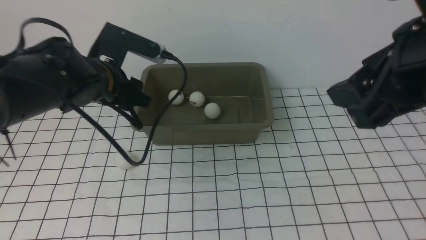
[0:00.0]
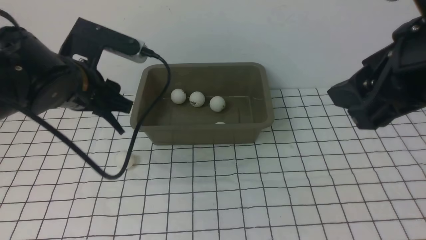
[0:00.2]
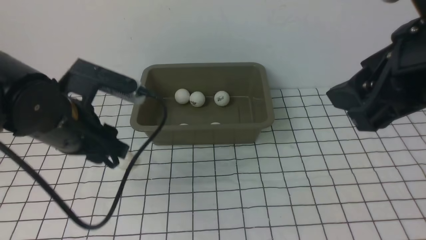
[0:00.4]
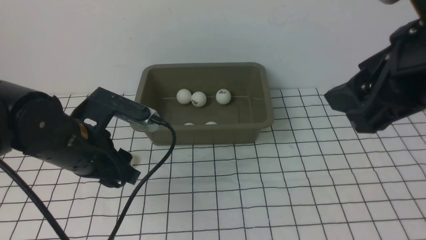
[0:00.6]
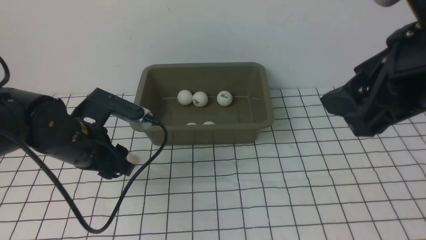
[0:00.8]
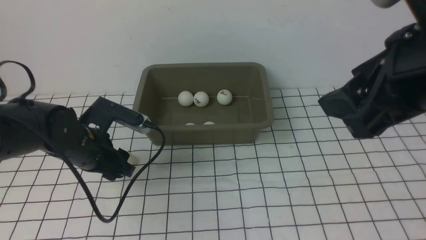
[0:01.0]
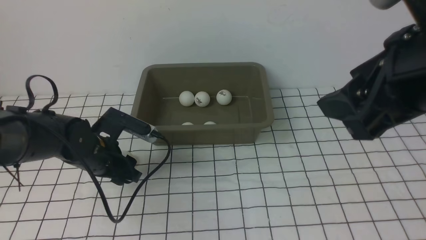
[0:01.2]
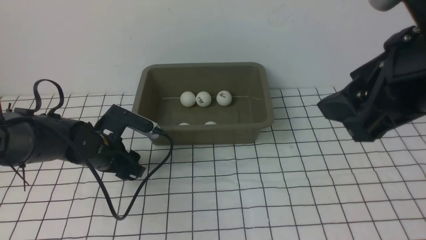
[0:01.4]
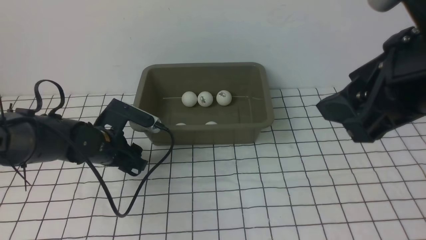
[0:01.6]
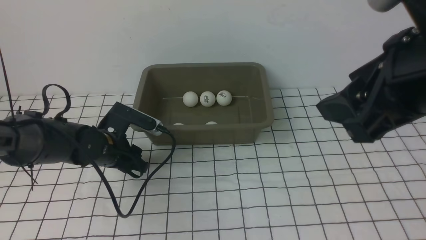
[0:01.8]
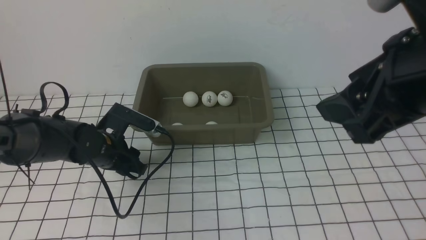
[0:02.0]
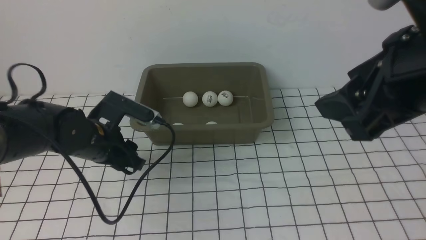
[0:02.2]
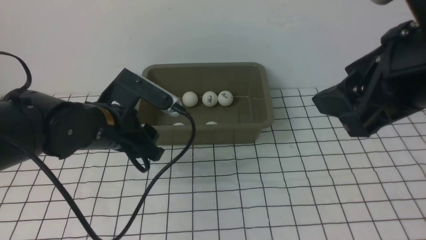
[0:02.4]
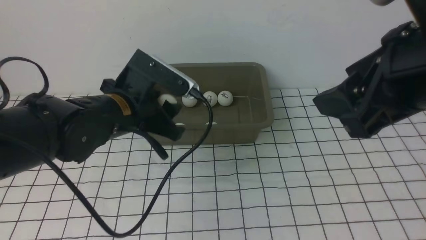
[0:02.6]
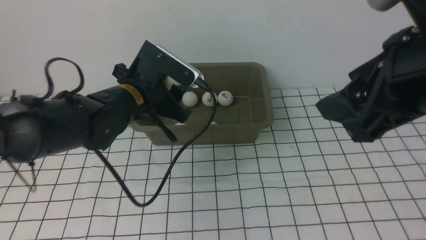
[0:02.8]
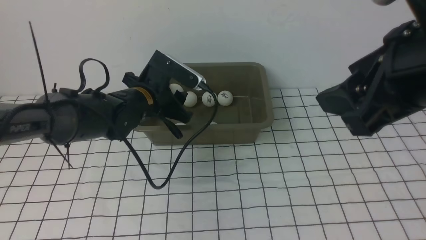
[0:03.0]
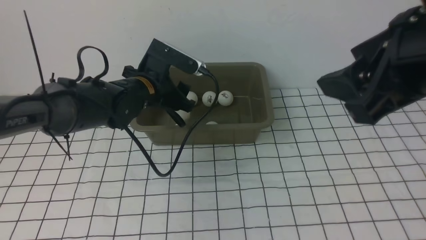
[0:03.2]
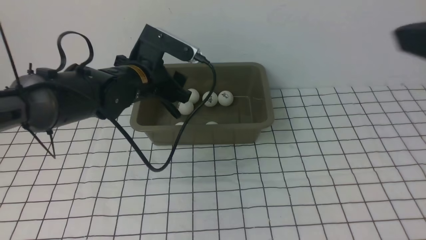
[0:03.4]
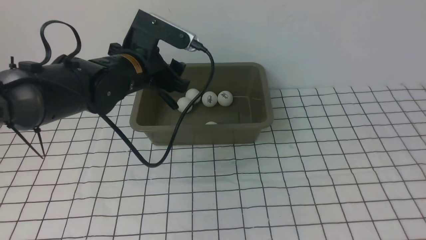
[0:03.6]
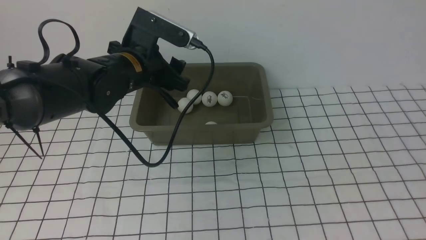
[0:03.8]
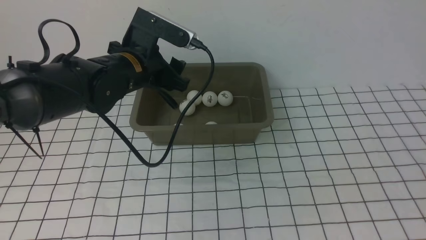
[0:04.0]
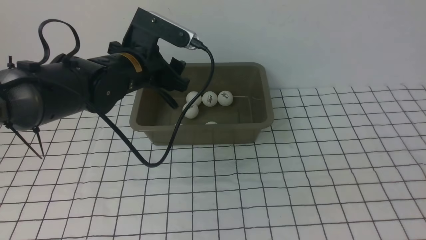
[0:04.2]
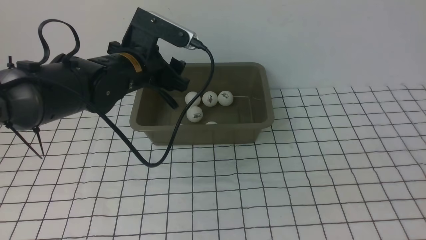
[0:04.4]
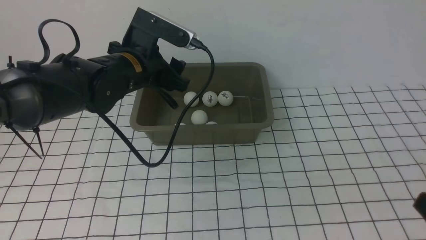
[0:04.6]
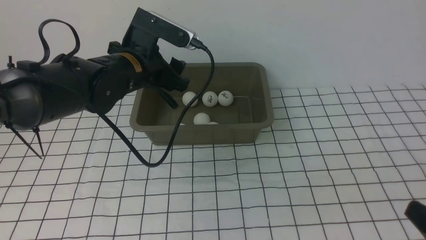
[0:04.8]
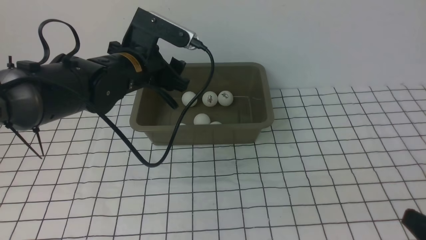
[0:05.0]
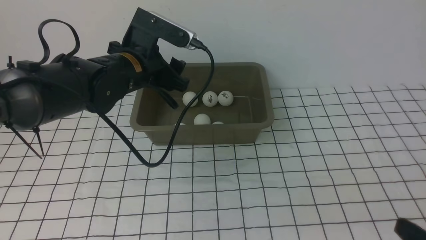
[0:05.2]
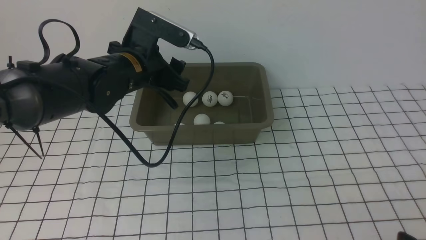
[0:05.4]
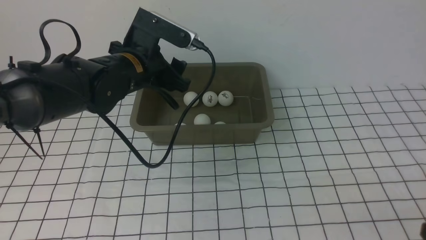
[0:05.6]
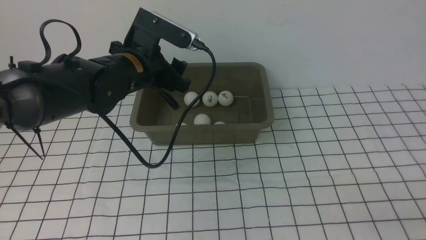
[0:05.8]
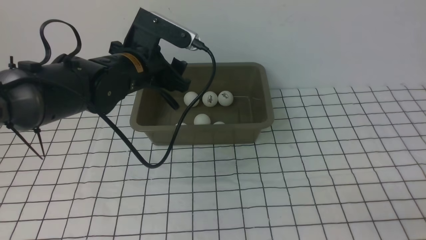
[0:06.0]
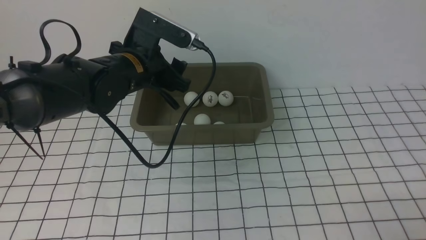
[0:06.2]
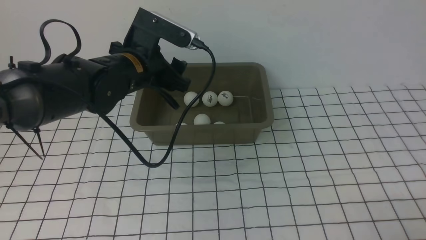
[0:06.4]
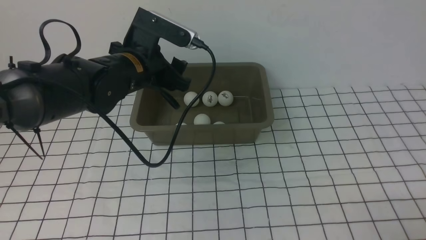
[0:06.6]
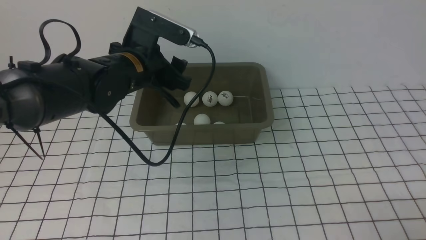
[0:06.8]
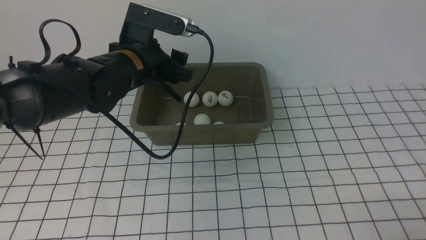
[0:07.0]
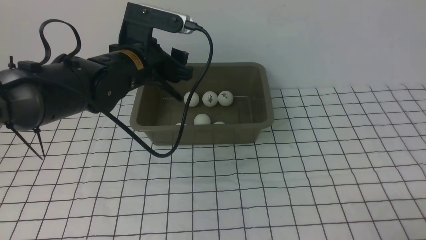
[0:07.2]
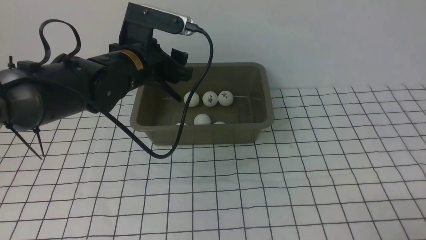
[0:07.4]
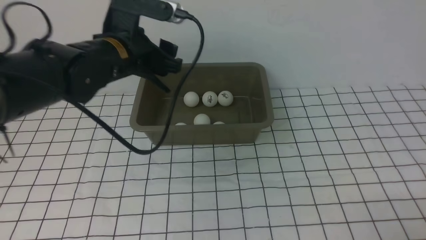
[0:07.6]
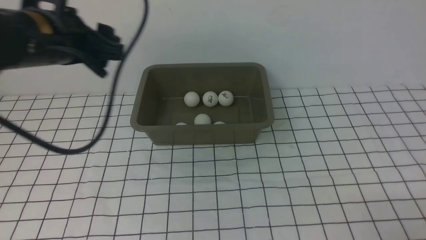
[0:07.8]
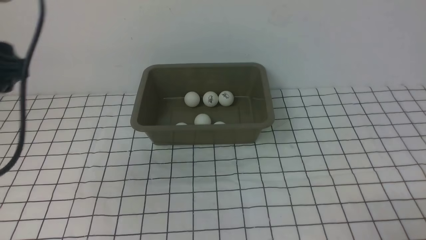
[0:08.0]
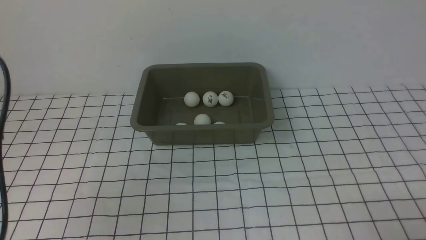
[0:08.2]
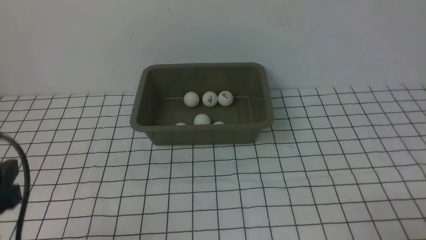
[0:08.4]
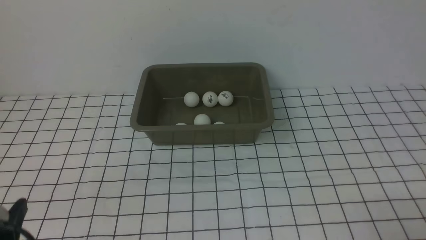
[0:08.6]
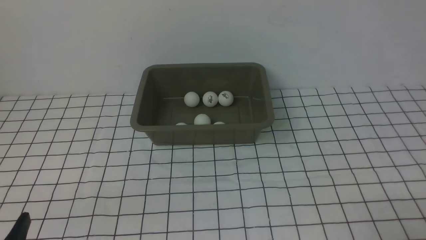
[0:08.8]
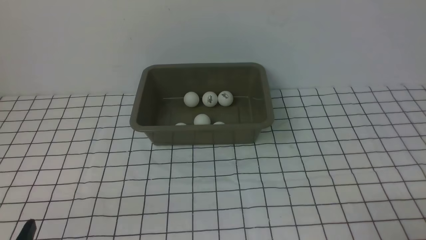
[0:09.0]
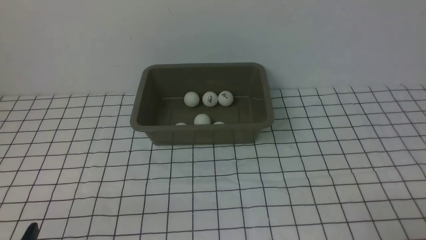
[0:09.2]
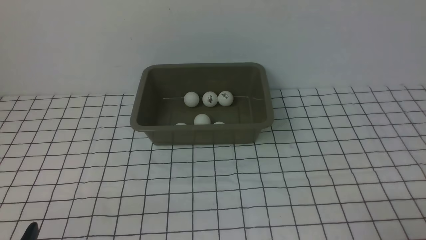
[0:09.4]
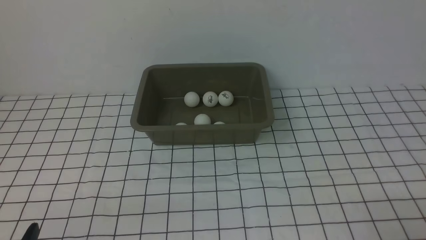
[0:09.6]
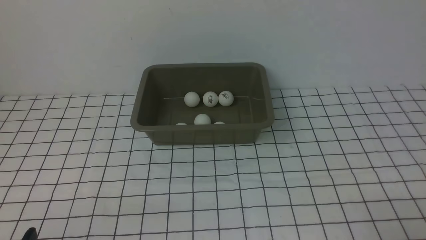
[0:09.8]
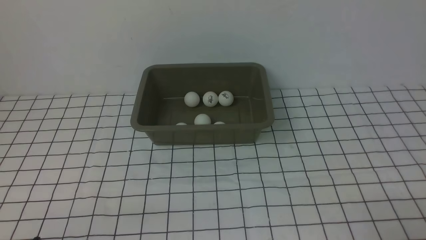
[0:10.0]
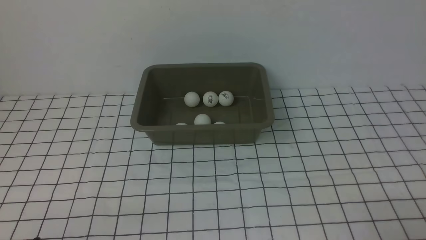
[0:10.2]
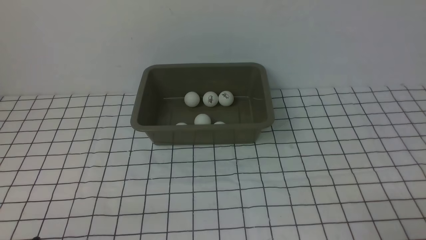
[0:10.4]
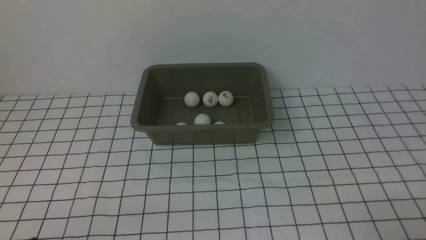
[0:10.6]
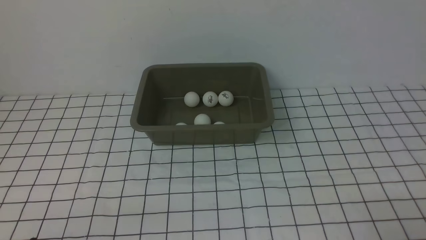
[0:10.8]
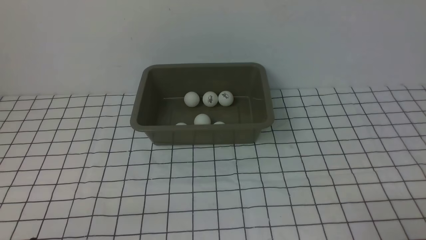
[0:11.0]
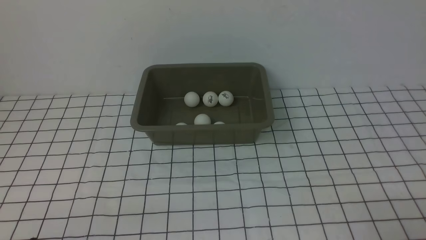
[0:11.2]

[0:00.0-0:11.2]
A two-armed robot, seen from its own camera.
Step, 0:00.0 to 0:02.2: use the left arm to clamp the table tennis ball closest to it.
Step, 0:02.6 to 0:03.2: use the left arm to put the table tennis ball into the box.
0:00.0 to 0:01.6: The left gripper travels downward by some 10 cm.
0:01.6 to 0:03.2: The left gripper goes about 10 cm upward and to the right.
0:03.2 to 0:04.8: The right gripper moves downward, backward and to the right, some 20 cm.
0:04.8 to 0:06.4: The right gripper is displaced downward by about 10 cm.
0:06.4 to 0:08.0: The left gripper moves to the left, backward and upward, some 20 cm.
0:08.0 to 0:09.6: The left gripper is displaced downward and backward by approximately 25 cm.

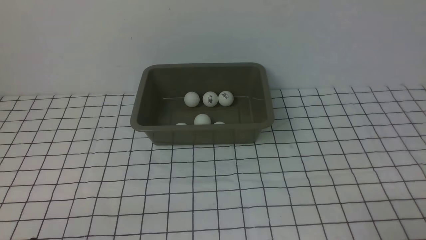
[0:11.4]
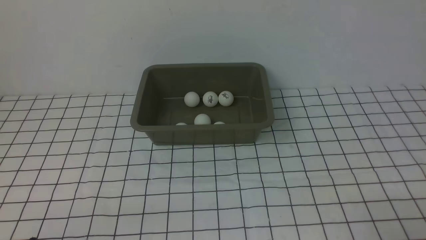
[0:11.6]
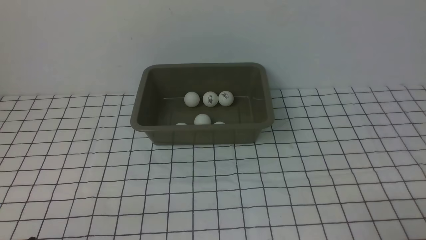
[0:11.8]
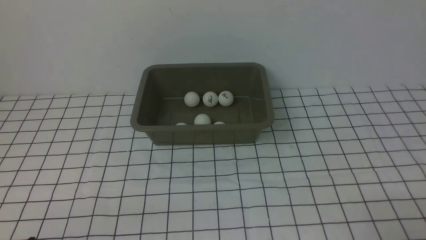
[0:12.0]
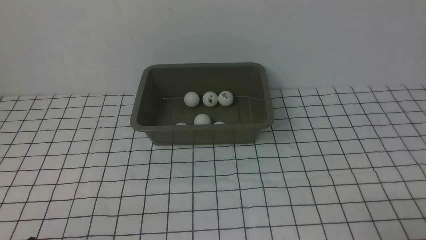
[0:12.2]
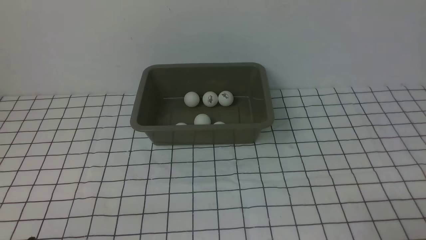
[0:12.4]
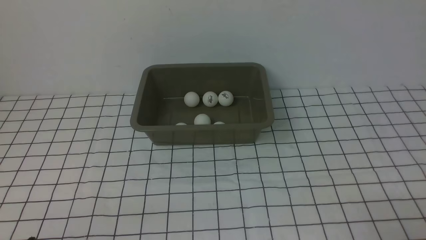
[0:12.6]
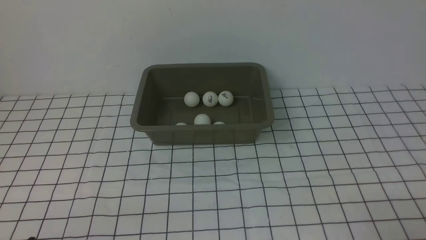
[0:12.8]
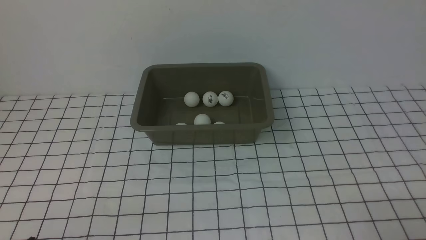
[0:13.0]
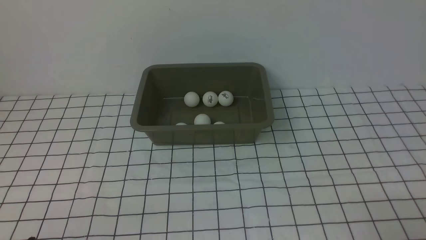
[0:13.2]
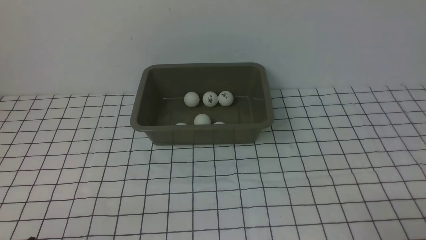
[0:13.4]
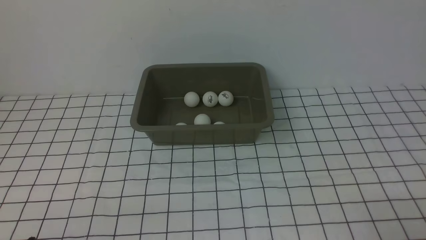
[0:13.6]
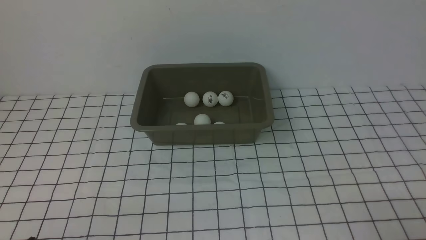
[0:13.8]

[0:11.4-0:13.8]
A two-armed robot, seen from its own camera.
0:11.4 to 0:13.8: Both grippers stay put.

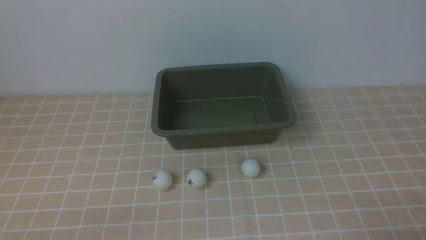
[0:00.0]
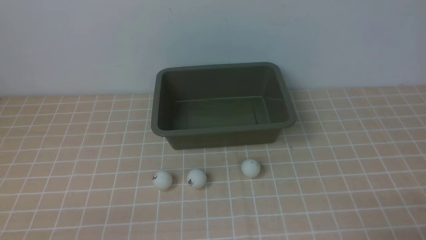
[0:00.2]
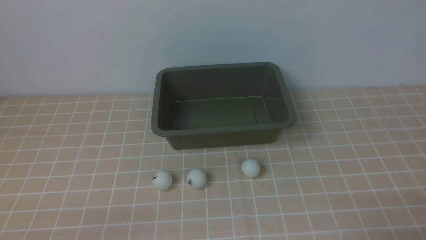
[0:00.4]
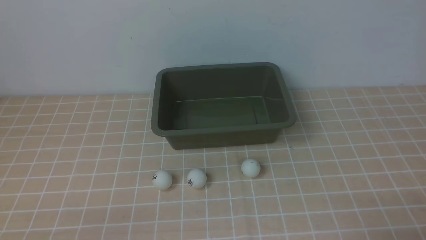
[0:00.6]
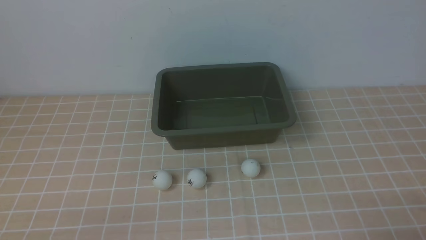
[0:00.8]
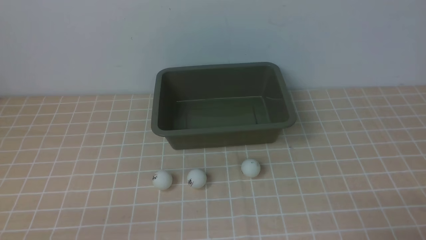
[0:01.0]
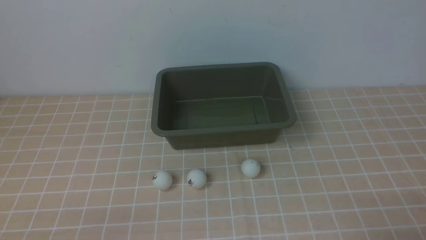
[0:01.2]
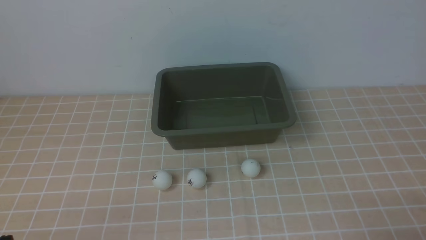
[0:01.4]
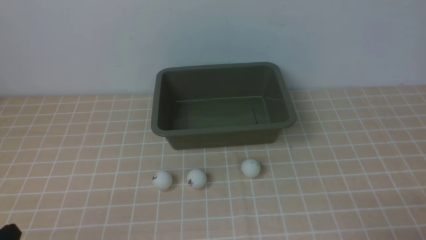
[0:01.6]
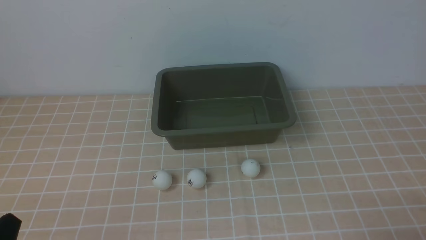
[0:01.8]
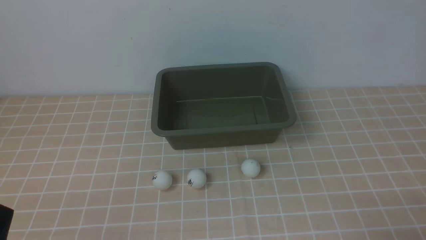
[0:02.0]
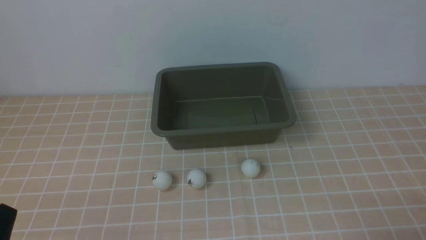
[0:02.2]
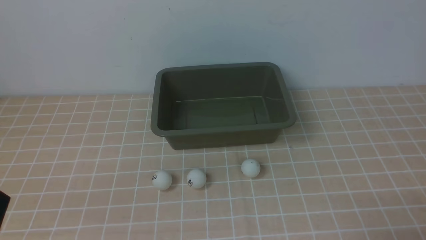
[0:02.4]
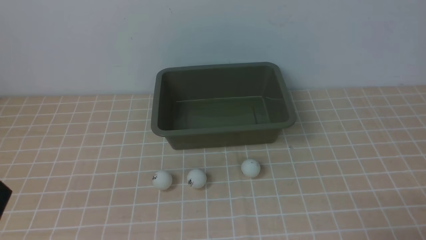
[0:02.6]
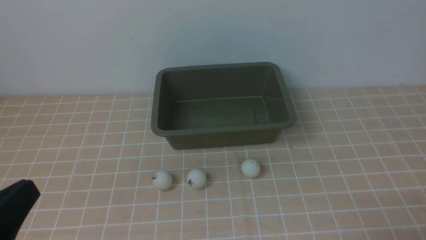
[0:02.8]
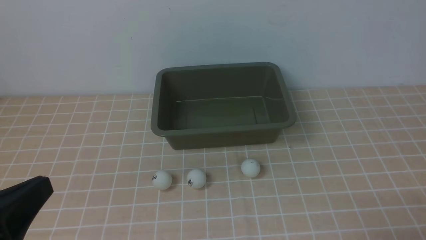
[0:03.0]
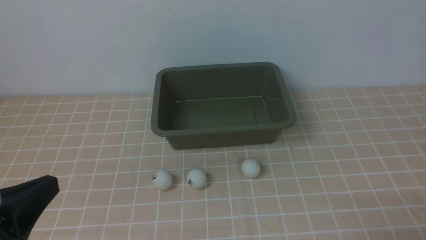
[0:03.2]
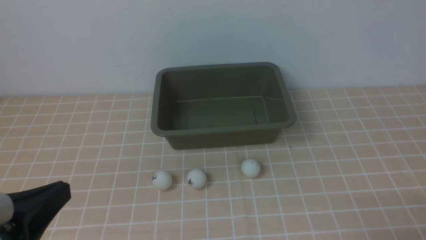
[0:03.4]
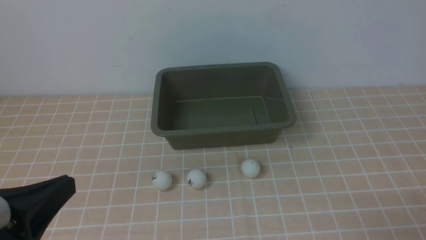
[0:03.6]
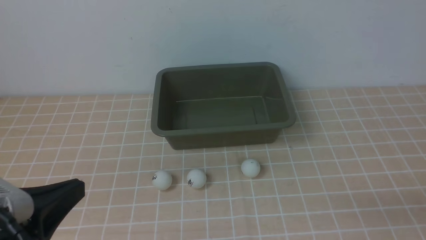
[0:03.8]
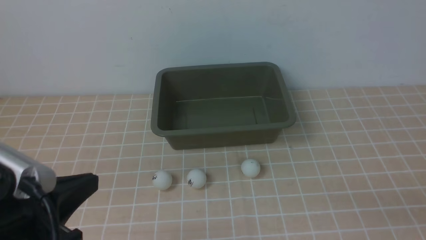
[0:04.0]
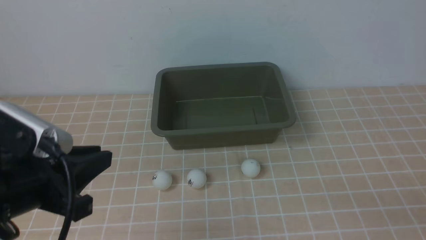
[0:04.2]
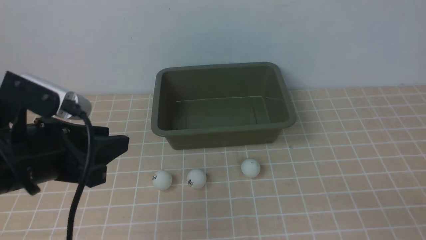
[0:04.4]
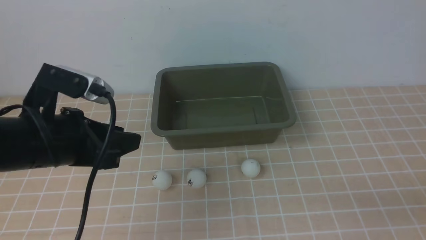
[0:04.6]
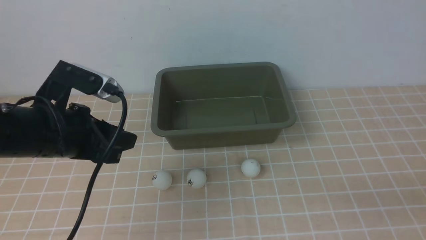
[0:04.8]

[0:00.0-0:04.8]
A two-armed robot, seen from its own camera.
0:01.6 to 0:03.2: The left gripper moves upward, roughly 10 cm.
0:03.2 to 0:04.8: The left gripper moves forward, approximately 15 cm, and opens; the right gripper shifts roughly 5 cm upward.
